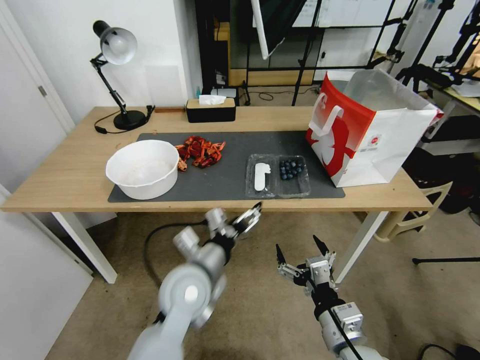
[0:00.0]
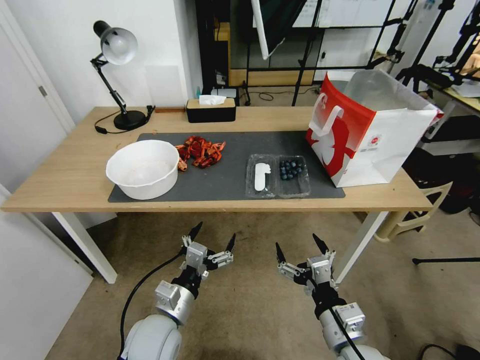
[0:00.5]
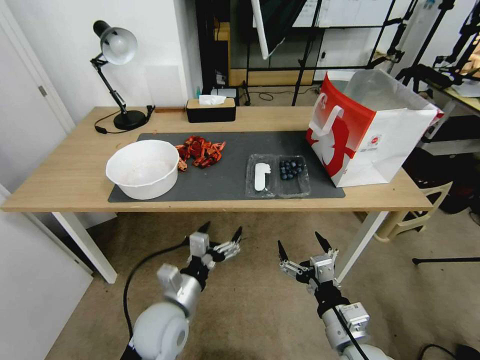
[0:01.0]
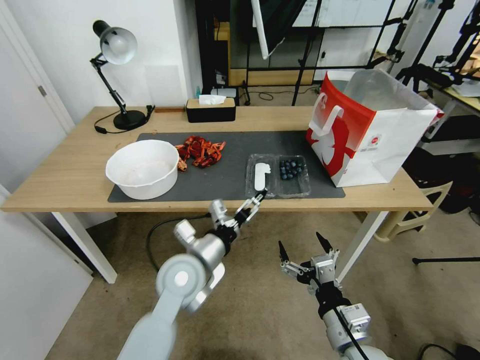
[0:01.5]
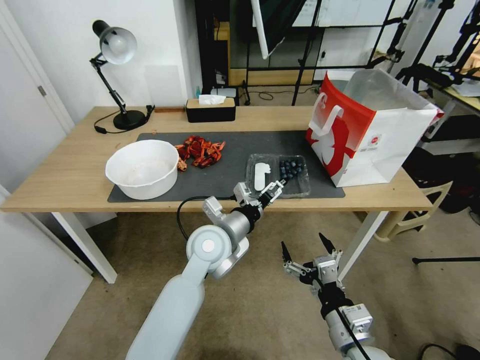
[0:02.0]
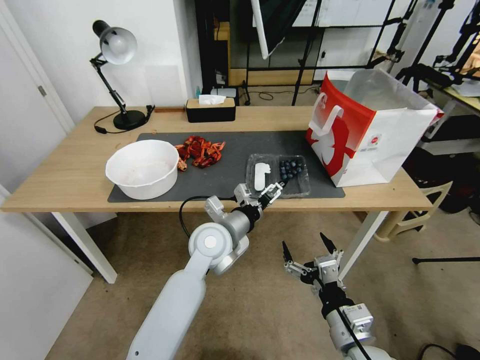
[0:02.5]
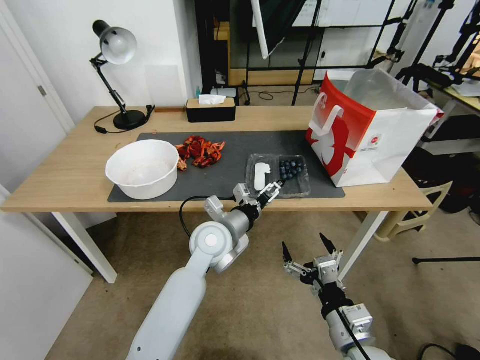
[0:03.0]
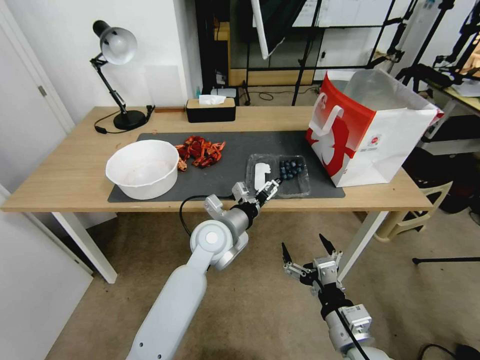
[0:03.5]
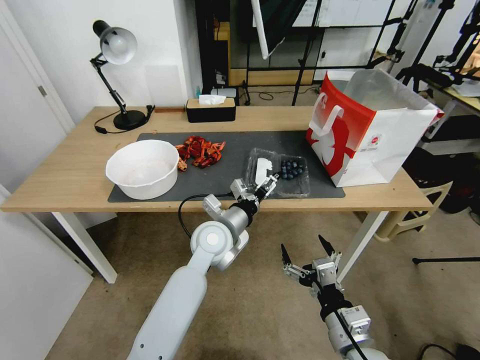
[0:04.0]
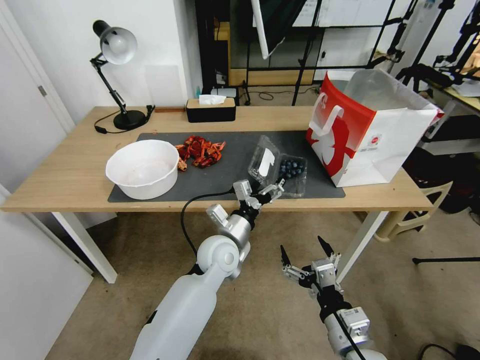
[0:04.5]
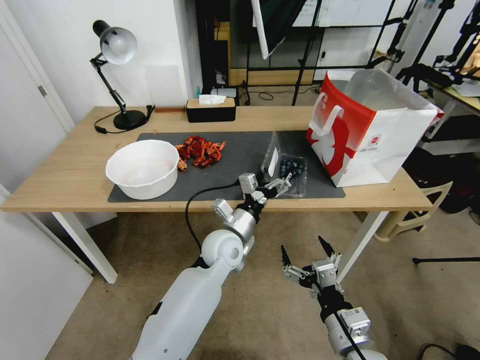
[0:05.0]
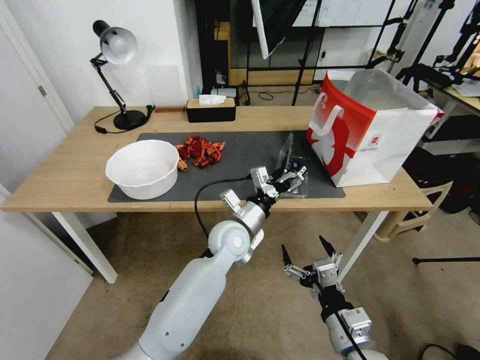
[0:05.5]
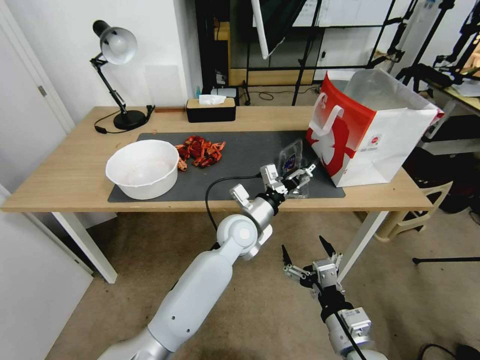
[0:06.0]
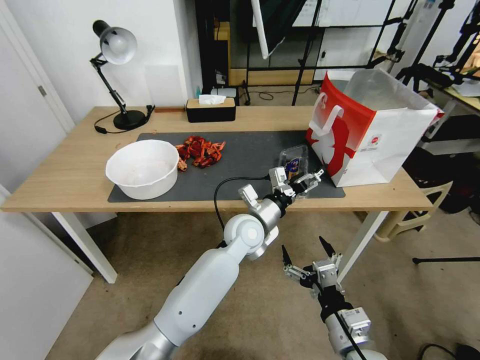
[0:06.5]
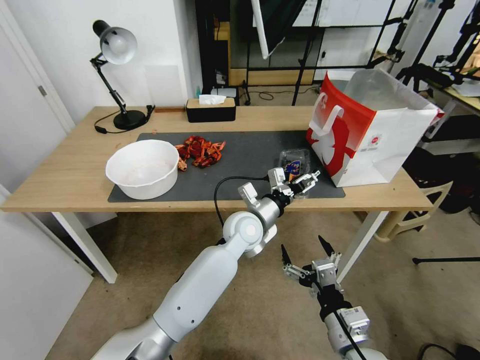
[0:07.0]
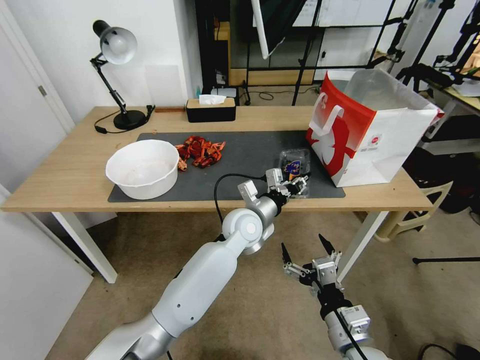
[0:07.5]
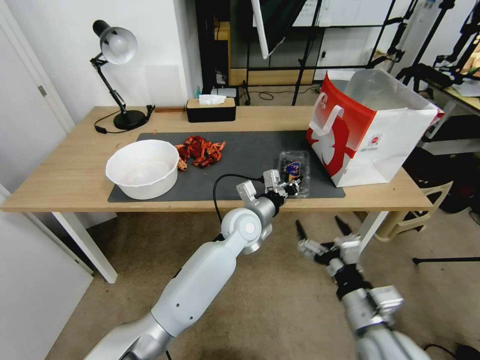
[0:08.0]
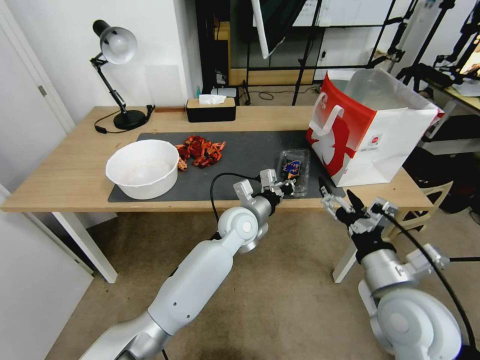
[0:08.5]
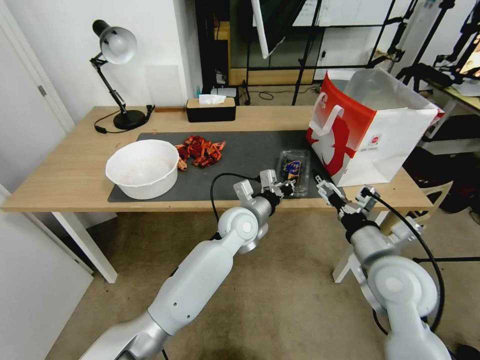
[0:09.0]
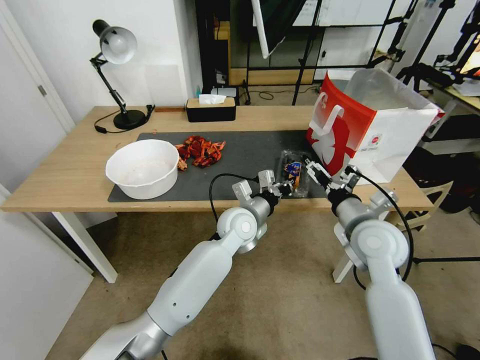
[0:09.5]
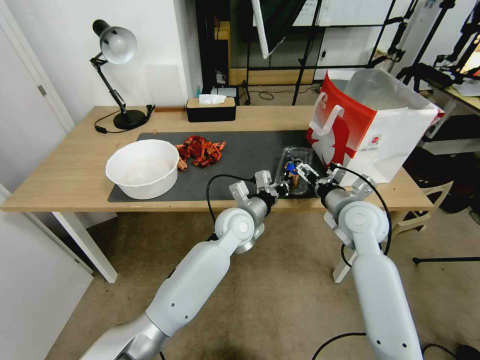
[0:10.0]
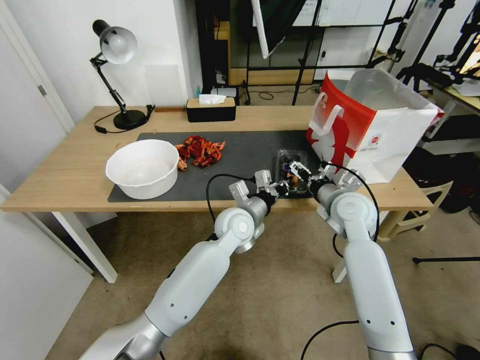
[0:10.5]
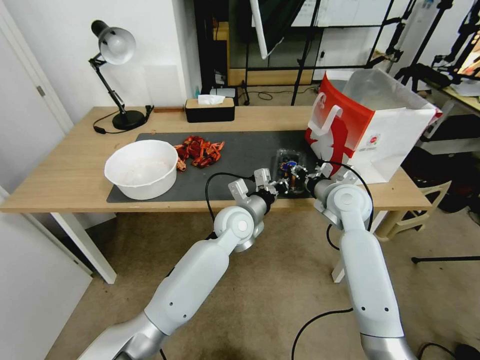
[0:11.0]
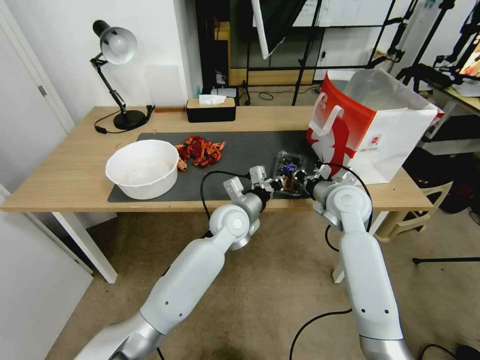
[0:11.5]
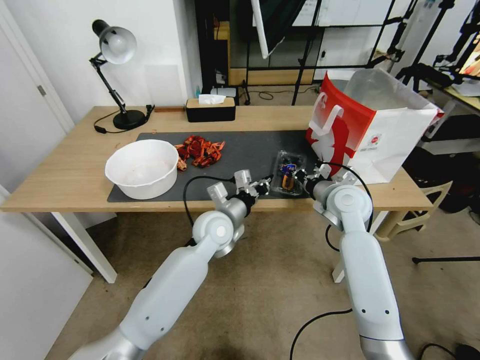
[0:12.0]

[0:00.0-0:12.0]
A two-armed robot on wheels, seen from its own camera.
Task of the whole recording: Close the takeout container lid, then place the container into the takeout bag.
0:00.0 to 0:02.0: The left gripper heads forward, covering about 5 cm.
0:02.0 to 0:04.0: There are only small adjustments of the grippers.
0:04.0 to 0:06.0: The left gripper travels to the right by approximately 5 cm.
0:06.0 to 0:08.0: The left gripper closes.
0:08.0 to 0:10.0: The right gripper shifts some 25 cm forward.
0:10.0 to 0:12.0: The right gripper closes its fingers.

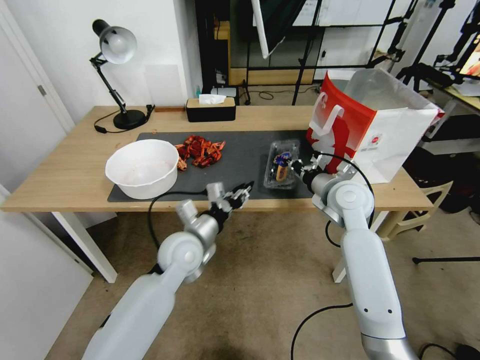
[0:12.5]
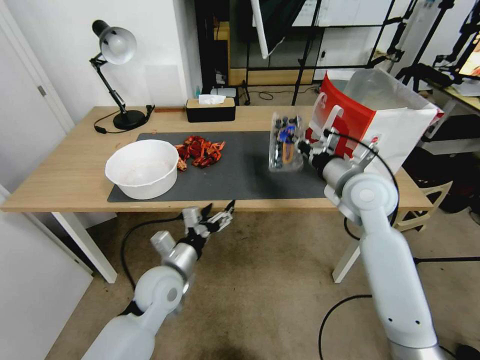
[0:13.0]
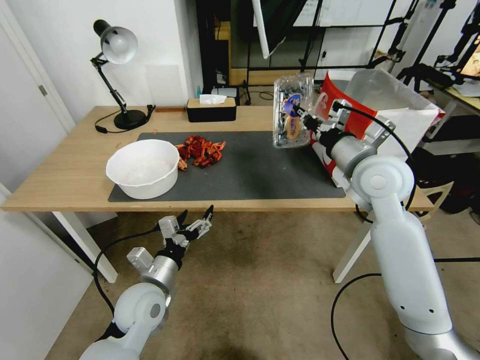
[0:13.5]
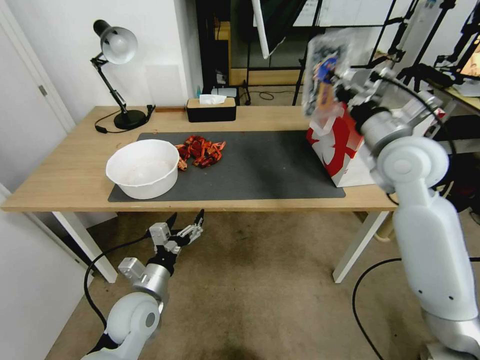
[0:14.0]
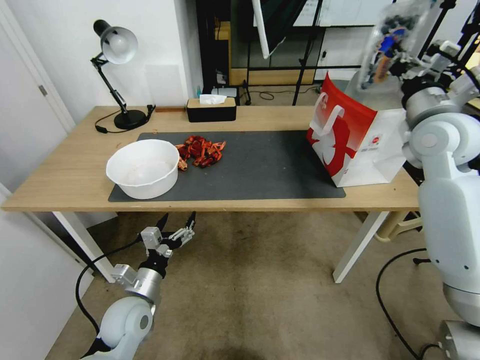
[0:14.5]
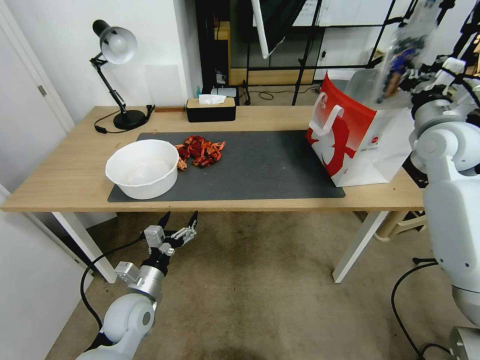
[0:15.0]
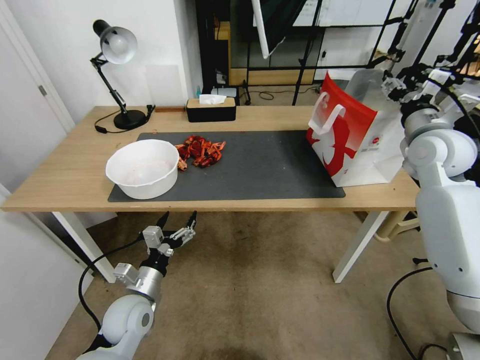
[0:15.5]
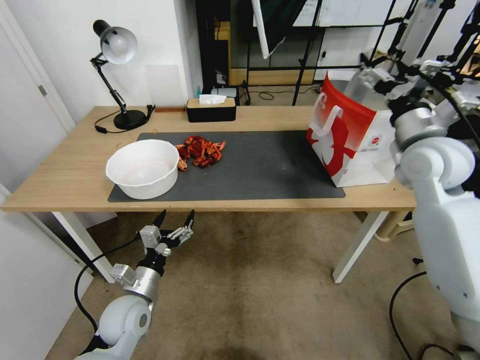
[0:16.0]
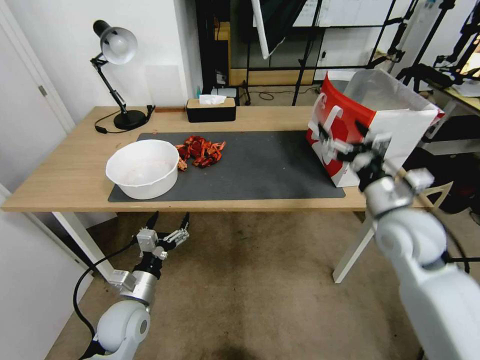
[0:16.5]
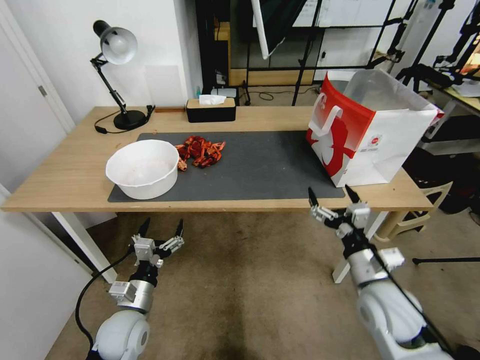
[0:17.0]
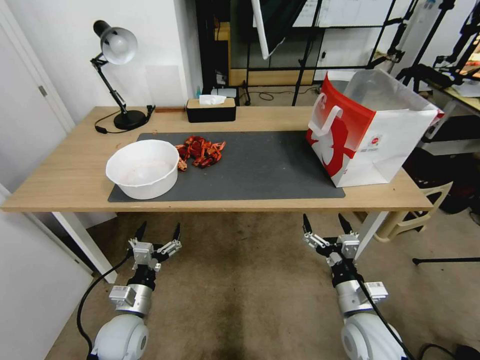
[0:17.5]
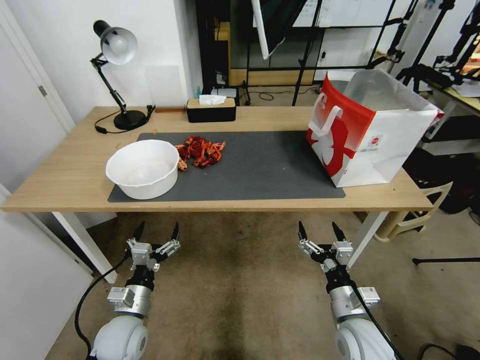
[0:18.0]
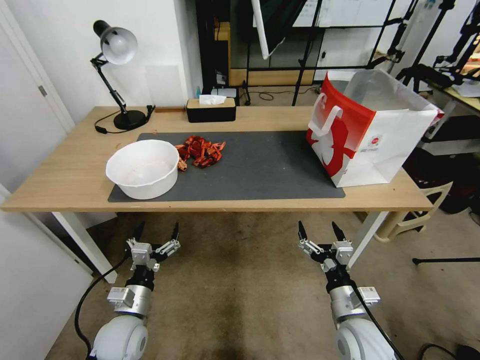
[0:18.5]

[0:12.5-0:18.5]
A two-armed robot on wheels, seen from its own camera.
Task of the whole recording: Close the takeout container lid, then place the container into the takeout bag.
0:12.5 to 0:14.5: The right gripper is displaced upward and to the right by about 20 cm, while the left gripper travels to the left, backward and downward by some 20 cm, and opens up.
0:14.5 to 0:16.5: The right gripper moves downward, backward and to the left, approximately 20 cm, and opens up.
0:16.5 to 0:18.5: The right gripper heads downward and backward, covering some 25 cm.
